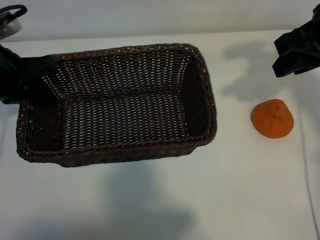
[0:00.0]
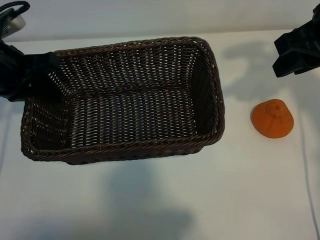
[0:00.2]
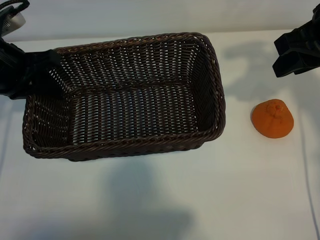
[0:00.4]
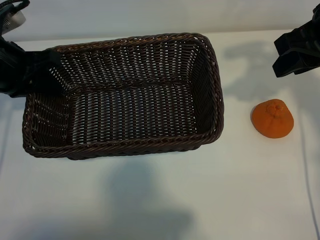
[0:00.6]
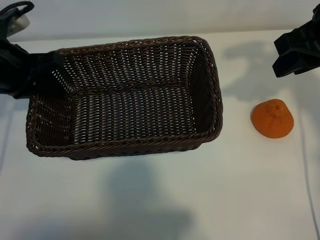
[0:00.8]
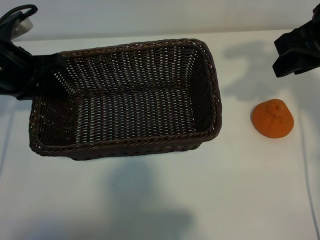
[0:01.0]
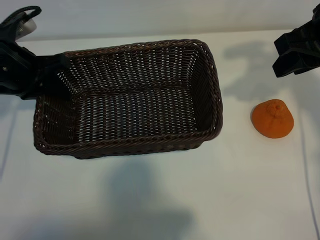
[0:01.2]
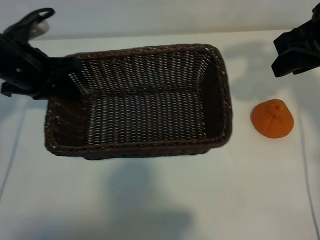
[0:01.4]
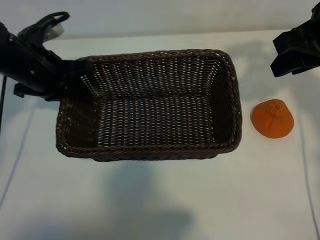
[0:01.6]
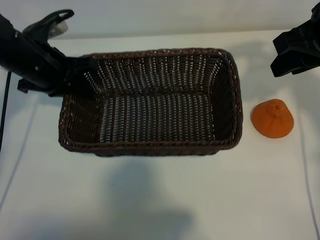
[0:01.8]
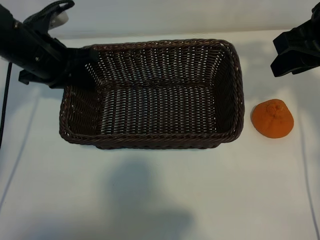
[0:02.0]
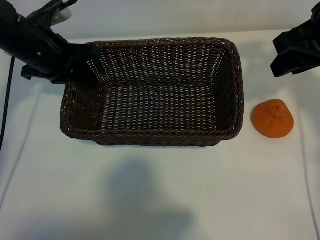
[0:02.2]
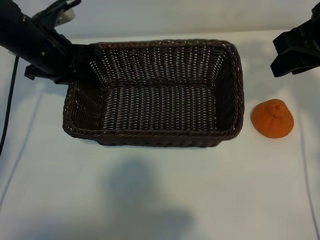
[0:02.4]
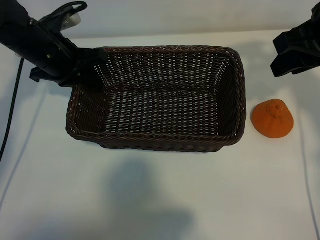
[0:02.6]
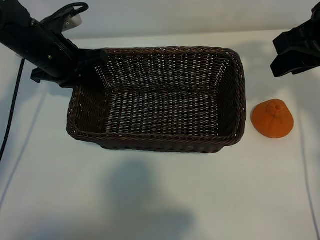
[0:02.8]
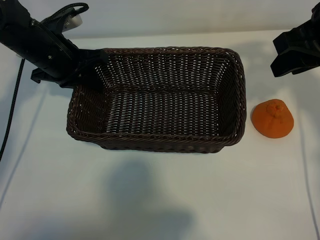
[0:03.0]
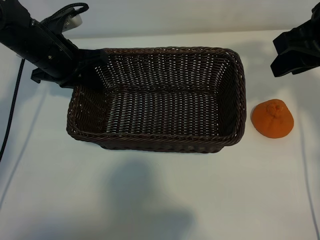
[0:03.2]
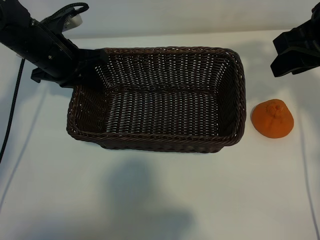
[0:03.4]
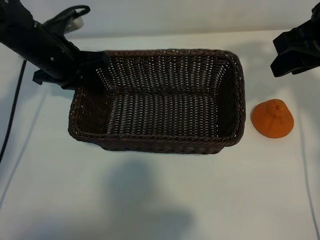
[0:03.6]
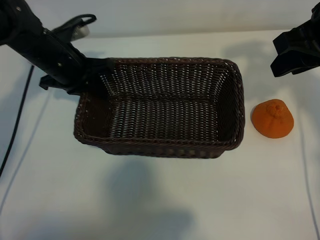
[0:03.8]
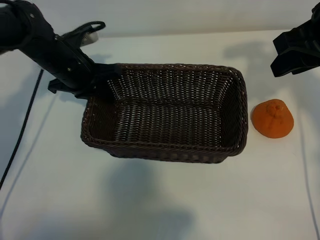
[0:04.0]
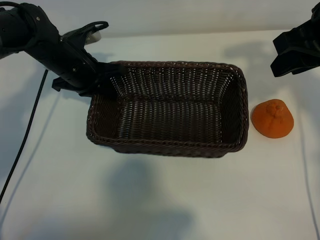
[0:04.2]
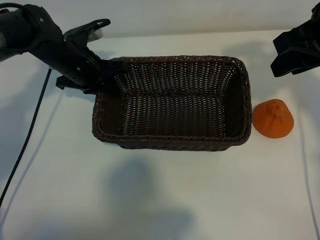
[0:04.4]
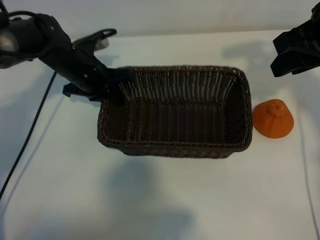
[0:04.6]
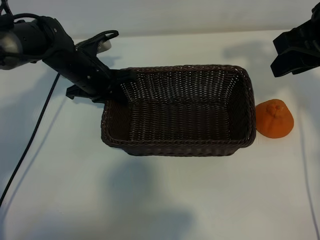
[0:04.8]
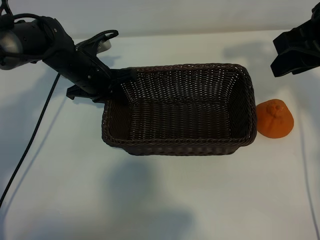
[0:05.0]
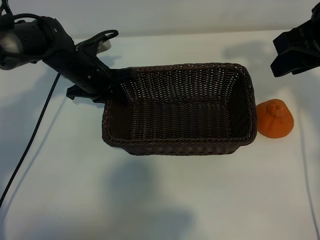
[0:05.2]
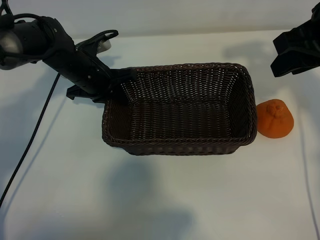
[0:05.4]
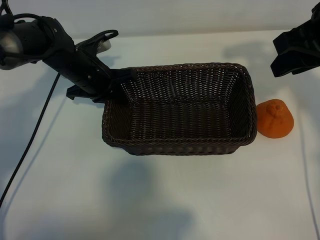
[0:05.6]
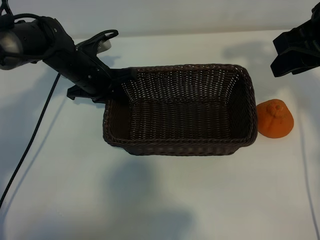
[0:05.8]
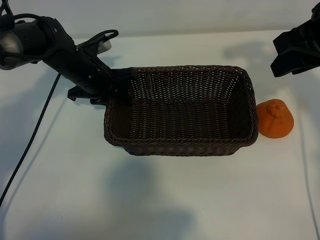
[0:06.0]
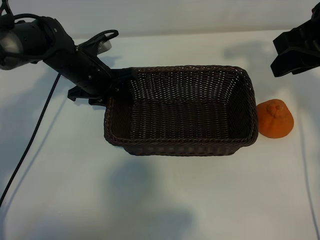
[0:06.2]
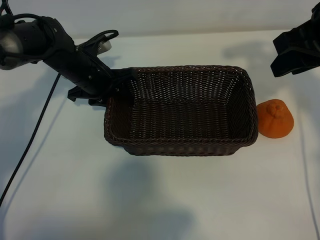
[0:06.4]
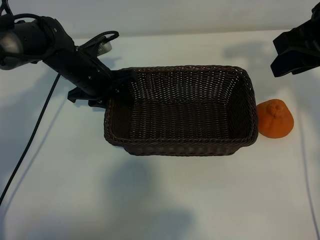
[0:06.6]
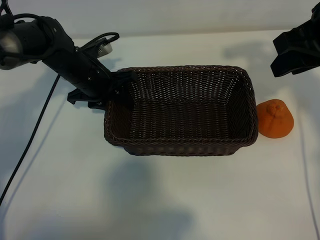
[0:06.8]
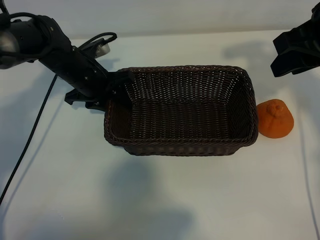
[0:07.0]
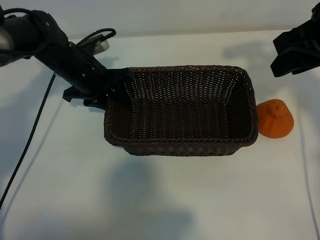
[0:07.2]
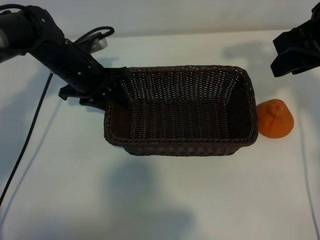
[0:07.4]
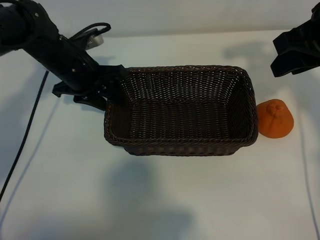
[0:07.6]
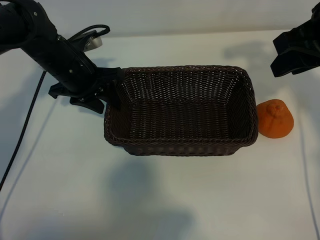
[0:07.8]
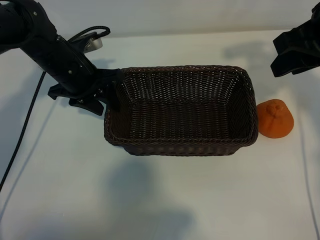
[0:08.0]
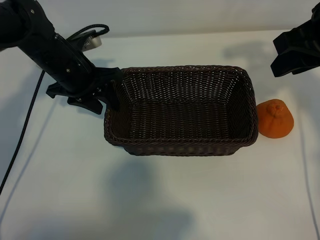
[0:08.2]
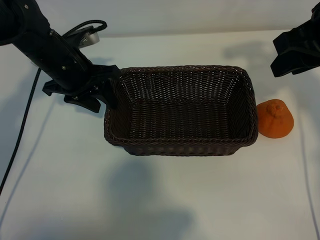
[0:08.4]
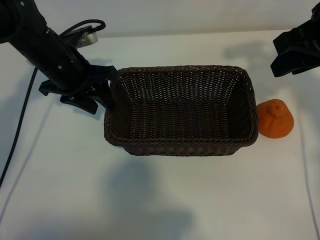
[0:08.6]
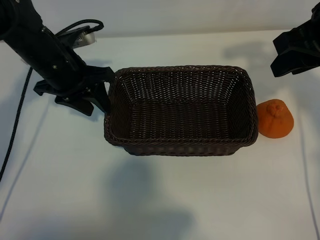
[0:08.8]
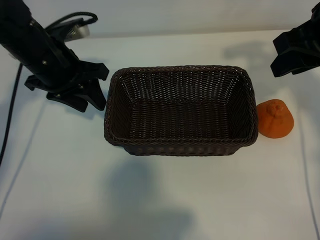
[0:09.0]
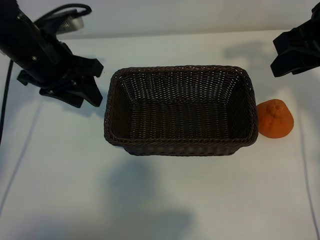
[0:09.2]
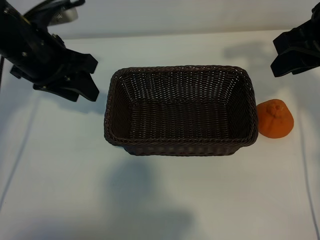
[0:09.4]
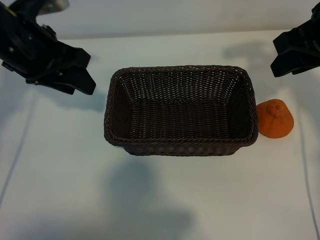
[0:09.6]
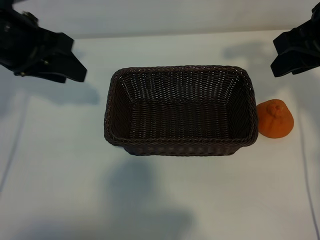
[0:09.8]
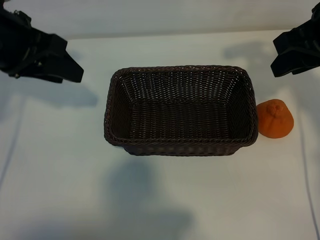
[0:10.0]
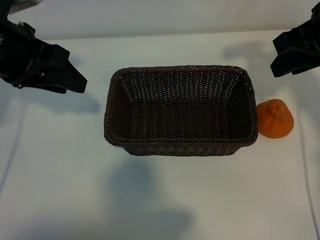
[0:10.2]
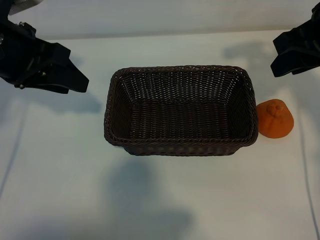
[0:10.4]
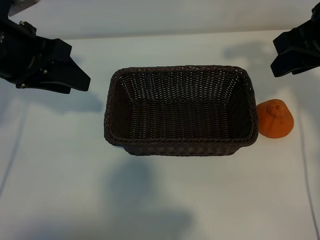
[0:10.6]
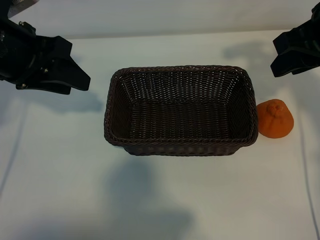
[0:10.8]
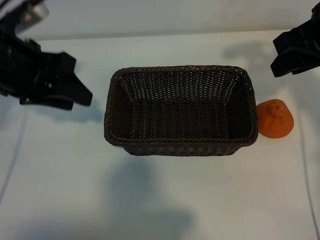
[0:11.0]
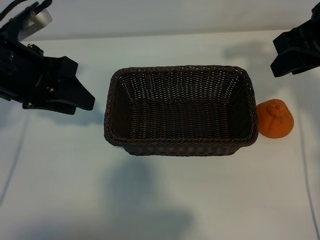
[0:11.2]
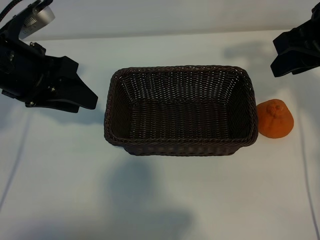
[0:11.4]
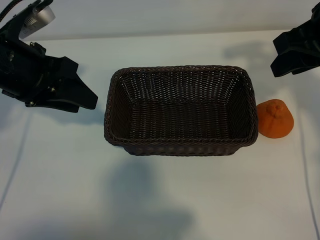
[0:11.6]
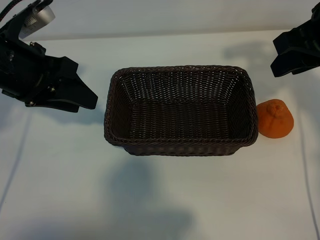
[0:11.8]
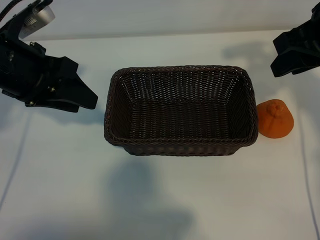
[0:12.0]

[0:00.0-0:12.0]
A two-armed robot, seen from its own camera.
Task of the whole recording: pick up the orange and put it into the basket.
Step, 0:00.0 to 0:05.8: Place the basket in the center of view with left gripper.

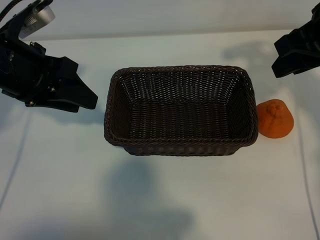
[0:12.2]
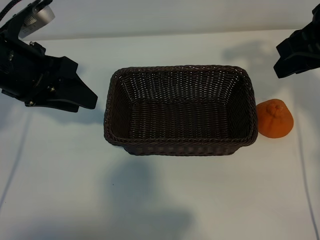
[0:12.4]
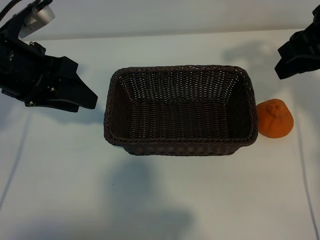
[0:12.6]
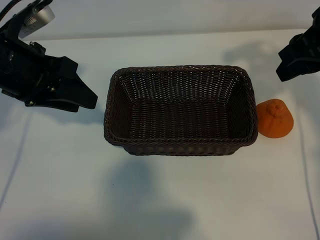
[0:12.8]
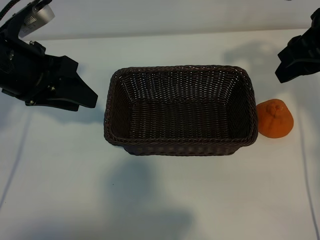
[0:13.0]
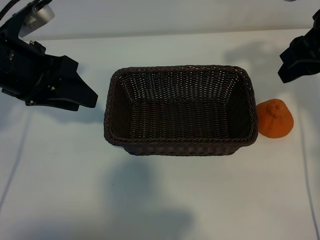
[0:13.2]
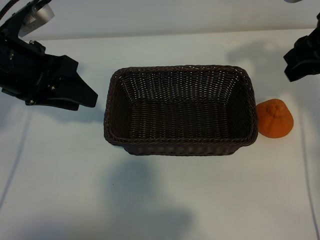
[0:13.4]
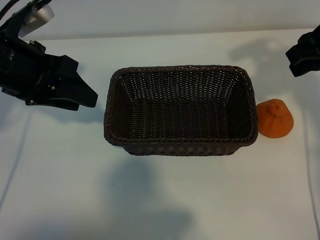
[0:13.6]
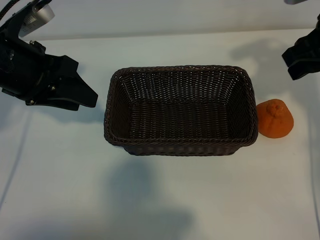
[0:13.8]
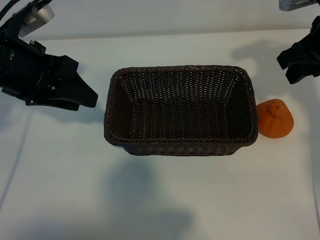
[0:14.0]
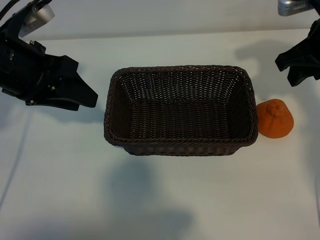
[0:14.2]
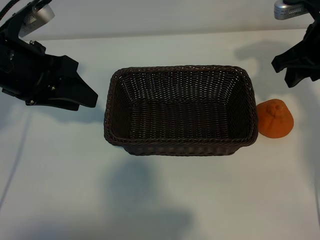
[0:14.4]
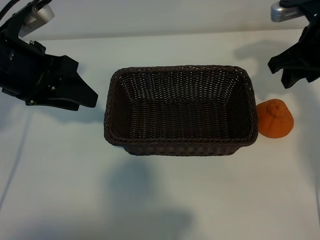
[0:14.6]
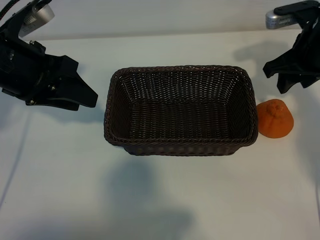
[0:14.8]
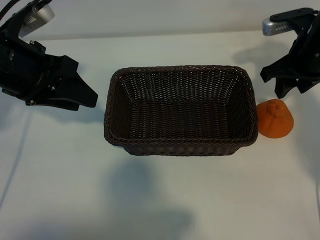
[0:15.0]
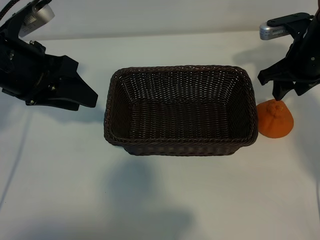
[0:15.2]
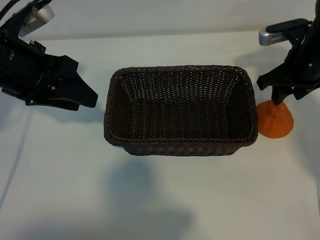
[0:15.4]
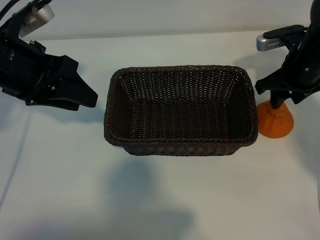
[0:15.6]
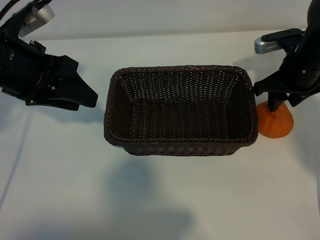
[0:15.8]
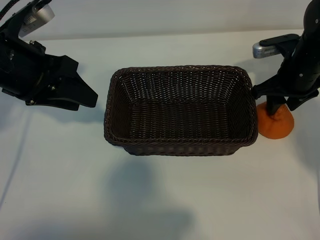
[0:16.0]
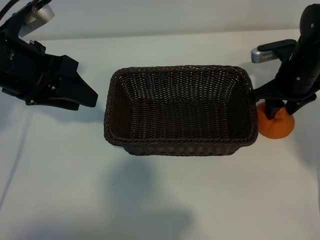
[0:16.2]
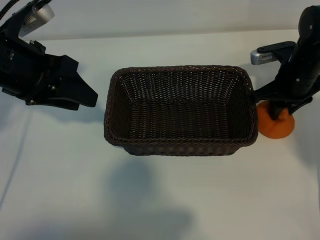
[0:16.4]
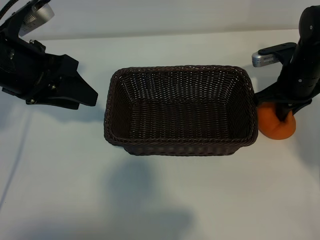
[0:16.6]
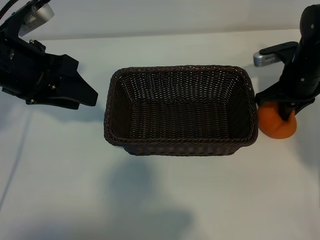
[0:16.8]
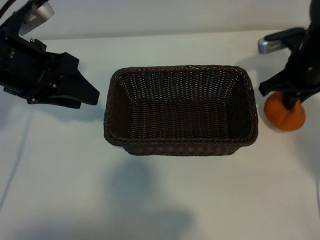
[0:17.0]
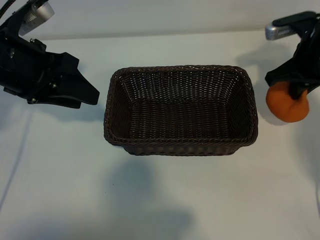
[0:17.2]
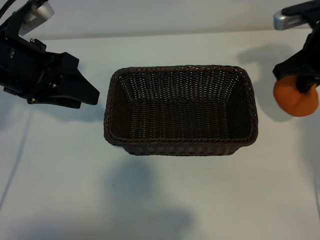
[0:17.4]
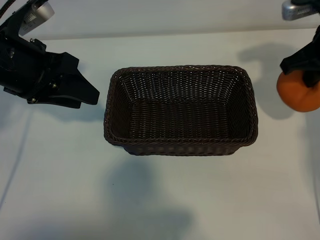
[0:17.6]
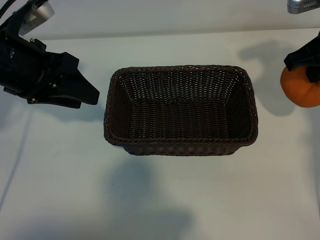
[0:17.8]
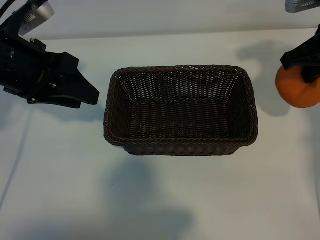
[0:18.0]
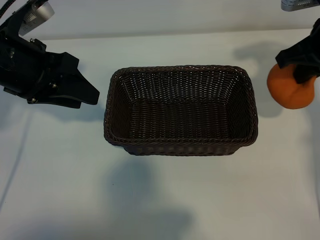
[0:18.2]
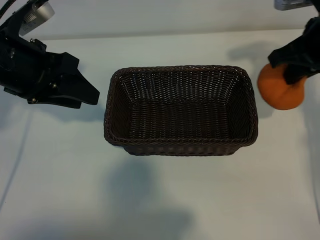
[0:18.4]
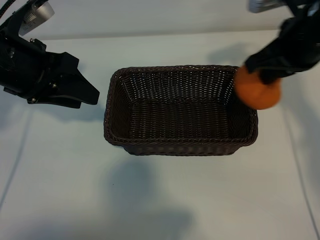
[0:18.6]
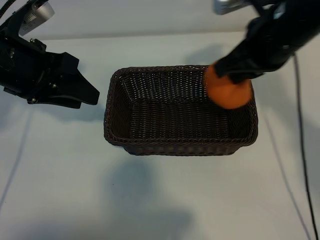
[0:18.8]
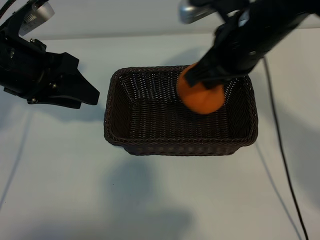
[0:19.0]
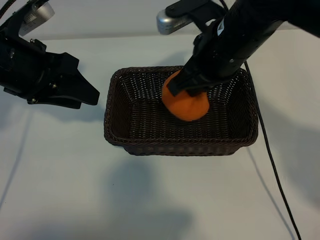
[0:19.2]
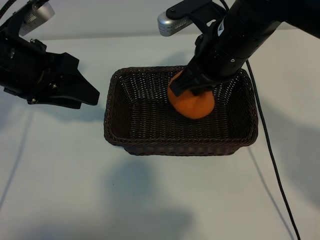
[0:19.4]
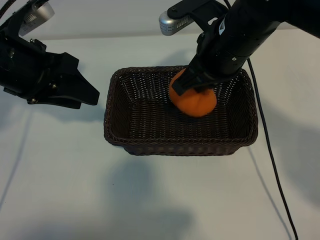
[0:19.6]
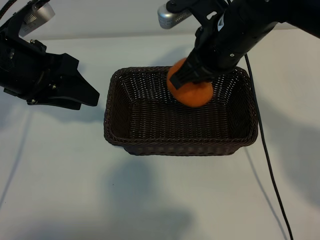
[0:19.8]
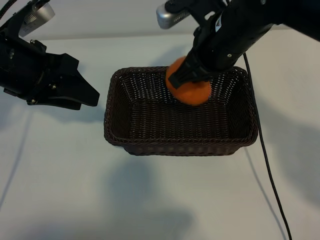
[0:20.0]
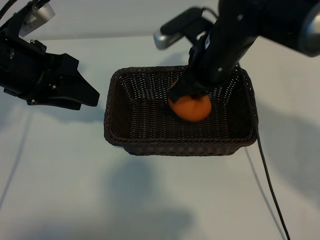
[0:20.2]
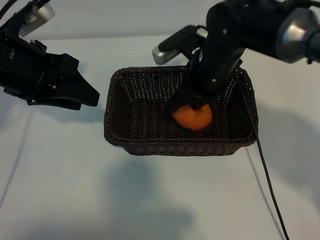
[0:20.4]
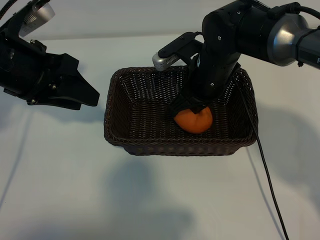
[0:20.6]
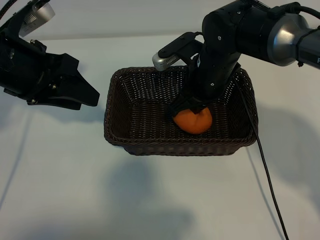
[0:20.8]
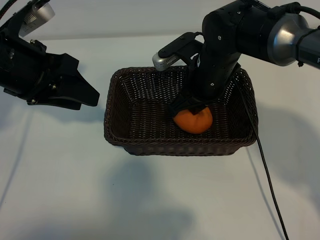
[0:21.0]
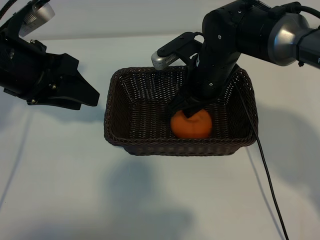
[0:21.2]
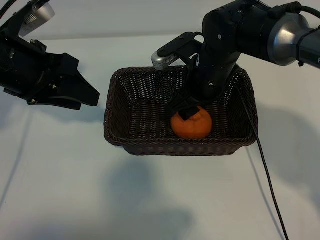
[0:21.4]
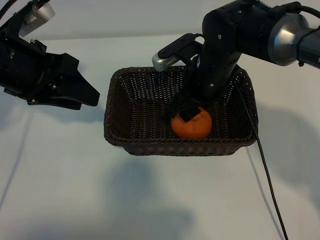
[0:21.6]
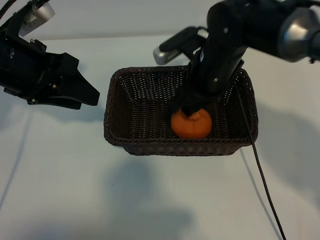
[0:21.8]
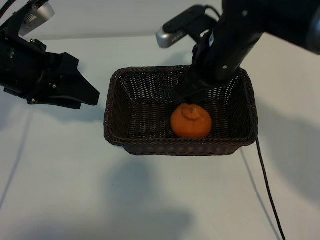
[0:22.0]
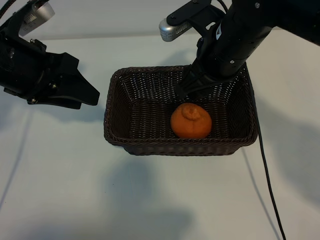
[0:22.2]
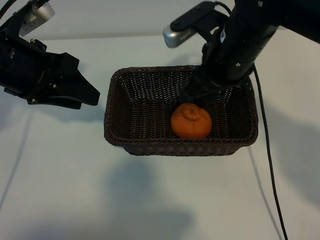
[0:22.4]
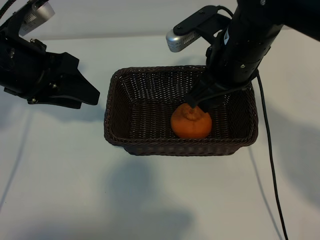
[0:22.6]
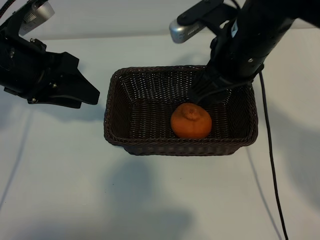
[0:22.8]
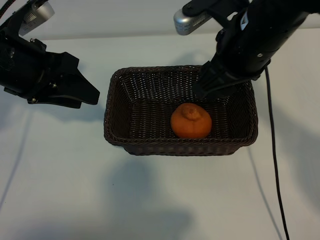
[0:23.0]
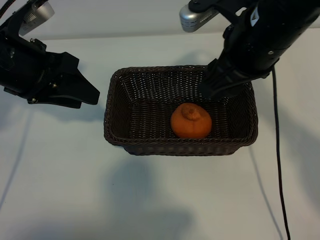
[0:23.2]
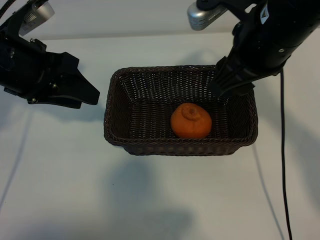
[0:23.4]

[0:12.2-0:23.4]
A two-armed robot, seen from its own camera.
Task of the whole recording: pick up the orange and put it into the basket.
Step, 0:12.2 to 0:16.6: Grasp the orange with right gripper.
Step, 0:16.8 to 0:21.4: Place the orange in the basket with right gripper.
